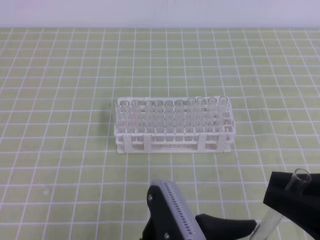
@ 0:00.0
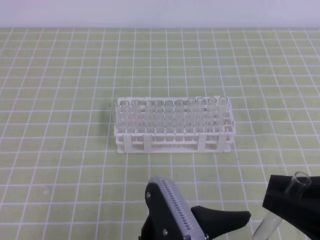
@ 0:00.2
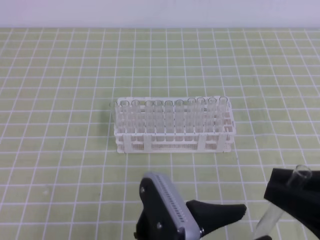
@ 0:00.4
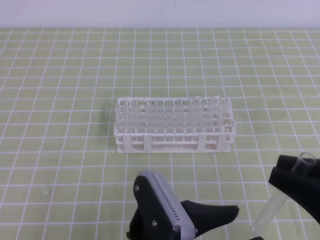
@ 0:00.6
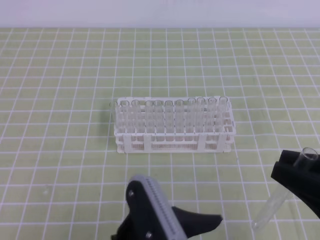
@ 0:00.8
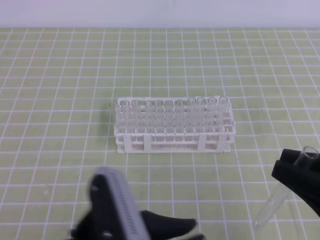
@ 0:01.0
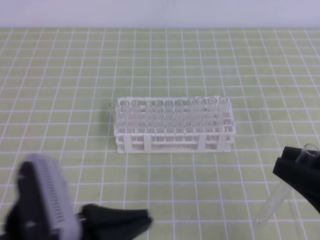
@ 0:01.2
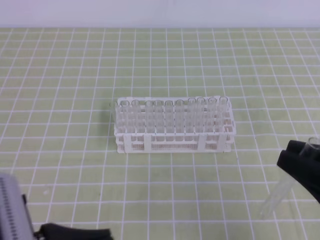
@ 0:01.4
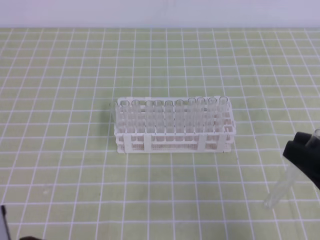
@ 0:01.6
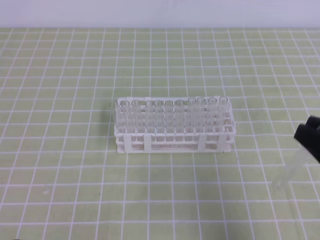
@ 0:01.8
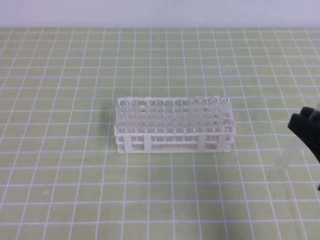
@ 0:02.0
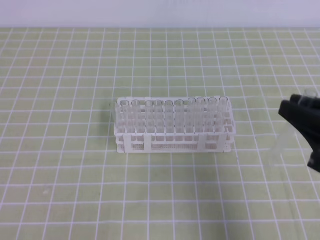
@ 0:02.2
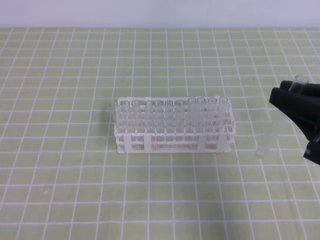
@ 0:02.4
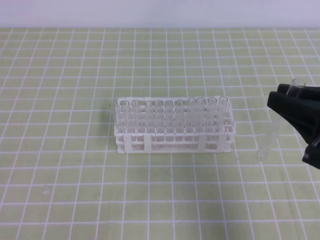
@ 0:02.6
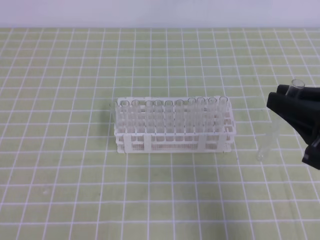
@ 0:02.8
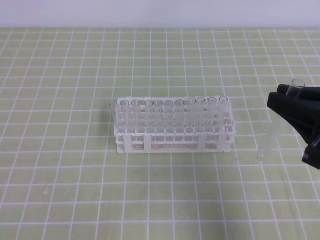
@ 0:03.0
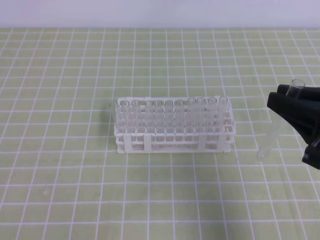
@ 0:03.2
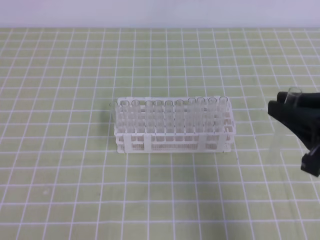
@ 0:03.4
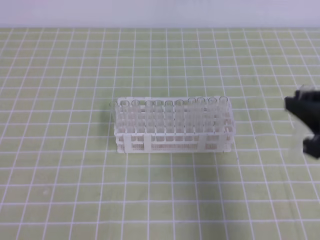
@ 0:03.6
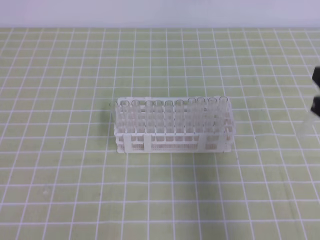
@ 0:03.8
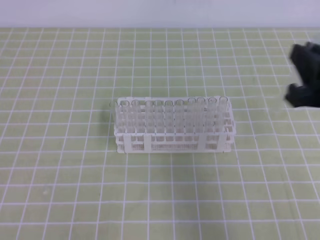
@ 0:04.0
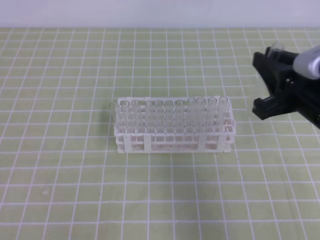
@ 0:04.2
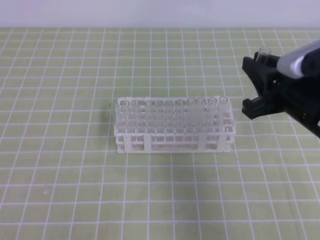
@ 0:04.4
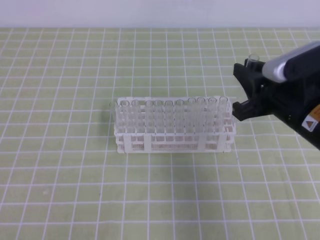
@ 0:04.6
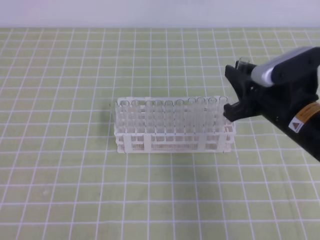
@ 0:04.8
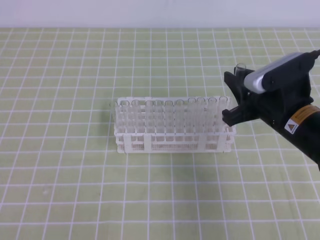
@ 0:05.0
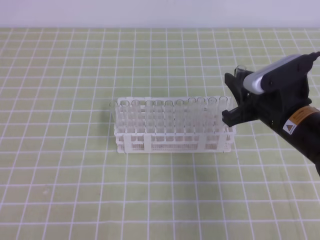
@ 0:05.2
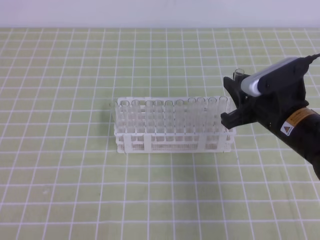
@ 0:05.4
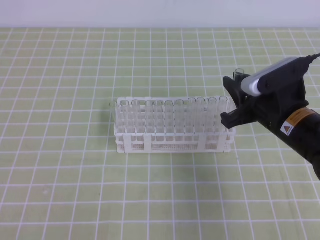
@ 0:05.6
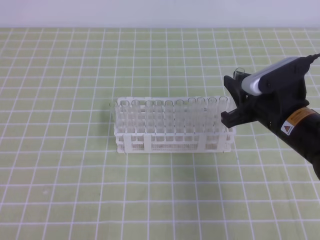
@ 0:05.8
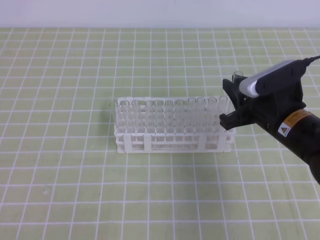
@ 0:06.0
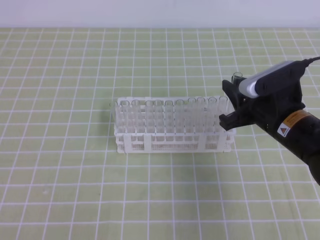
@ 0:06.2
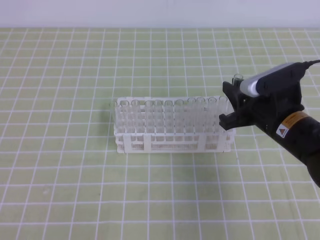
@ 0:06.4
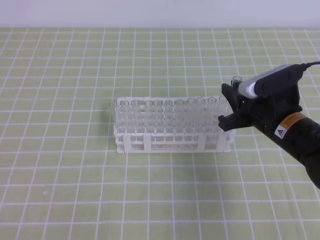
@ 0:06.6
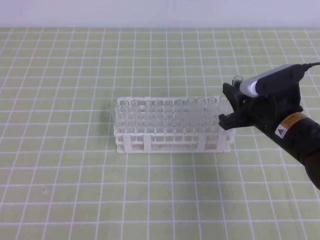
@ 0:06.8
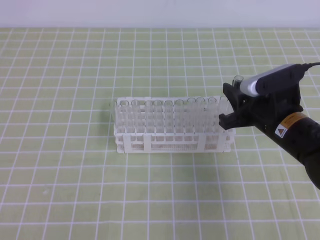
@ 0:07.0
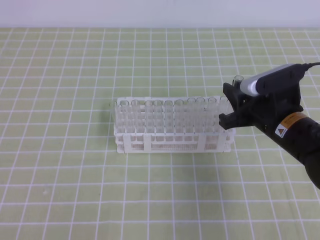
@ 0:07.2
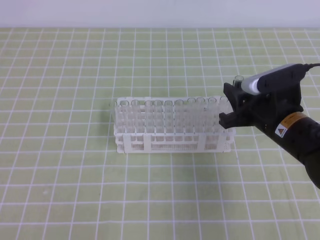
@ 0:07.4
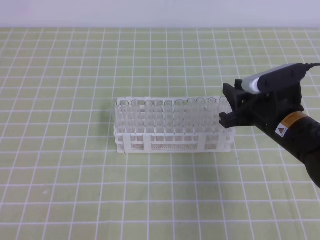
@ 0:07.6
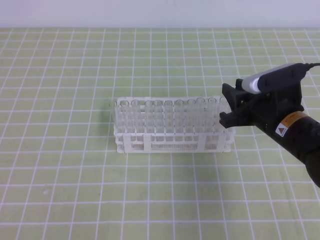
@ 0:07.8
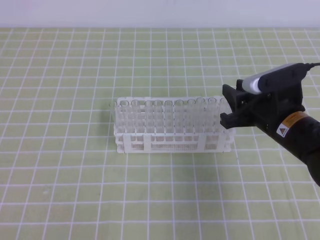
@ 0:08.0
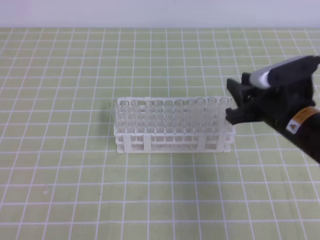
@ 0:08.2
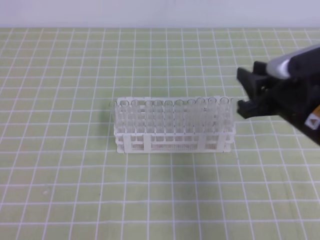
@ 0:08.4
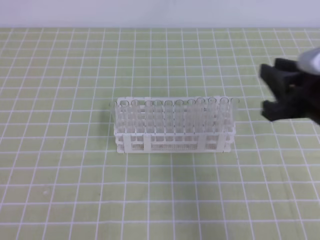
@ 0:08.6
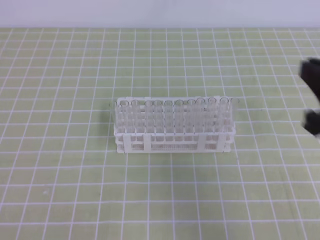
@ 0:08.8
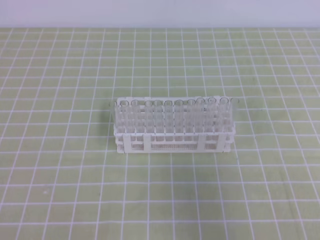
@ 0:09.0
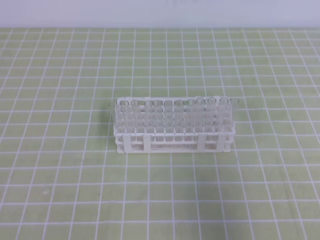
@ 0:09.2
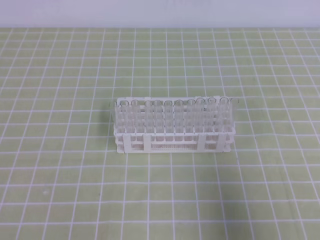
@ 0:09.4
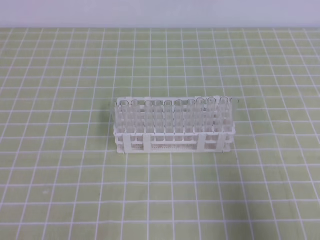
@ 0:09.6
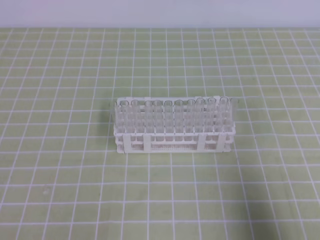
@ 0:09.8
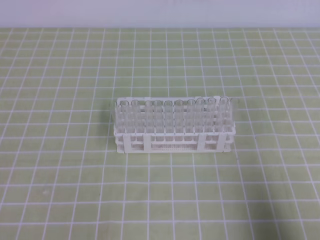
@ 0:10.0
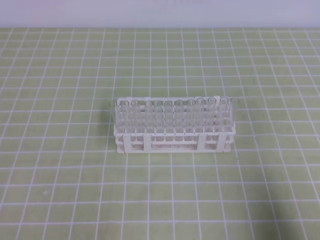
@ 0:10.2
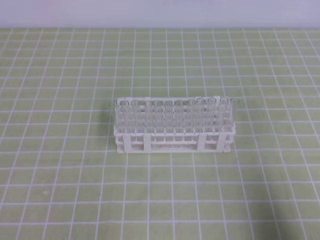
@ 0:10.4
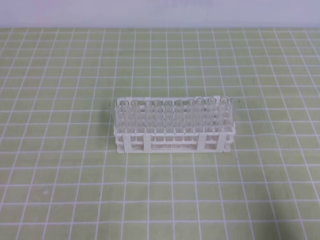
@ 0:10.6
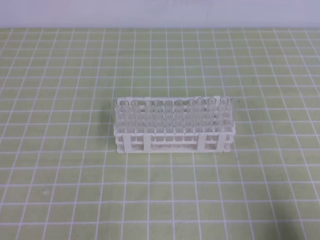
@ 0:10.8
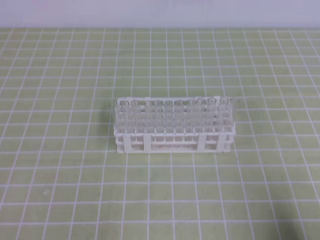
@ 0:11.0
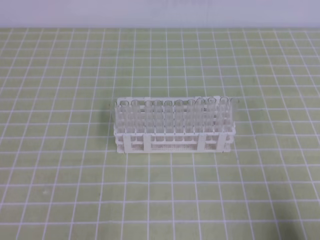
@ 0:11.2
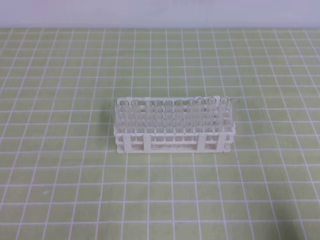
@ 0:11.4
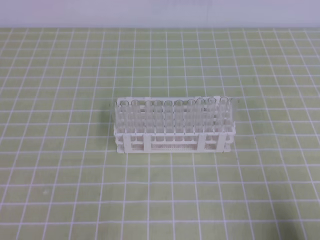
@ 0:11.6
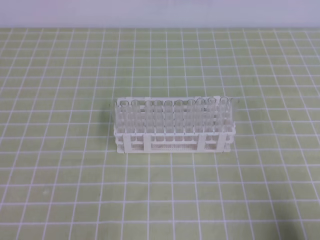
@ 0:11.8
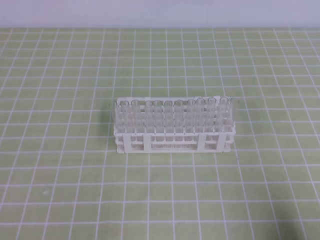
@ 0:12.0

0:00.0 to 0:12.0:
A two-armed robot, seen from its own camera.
0:00.0 to 0:01.6: The left gripper travels to the left by approximately 15 cm, and closes up.
0:01.6 to 0:03.0: The right gripper travels forward by roughly 5 cm.
0:03.0 to 0:04.4: The right gripper heads forward, covering about 5 cm.
0:04.4 to 0:06.0: The right gripper shifts roughly 10 cm downward and forward.
0:06.0 to 0:07.6: The grippers stay close to where they were, moving slightly.
0:07.6 to 0:09.0: The right gripper travels backward, upward and to the right by about 20 cm.
0:09.0 to 0:10.4: The right gripper moves downward, backward and to the right, about 15 cm.

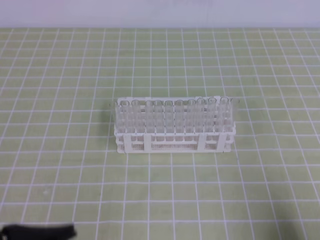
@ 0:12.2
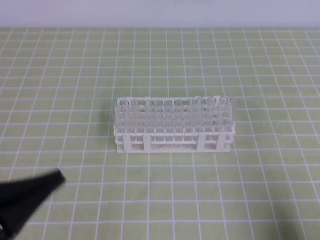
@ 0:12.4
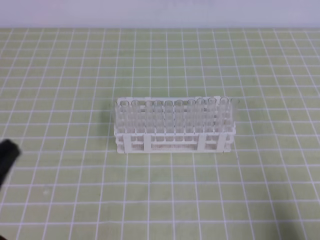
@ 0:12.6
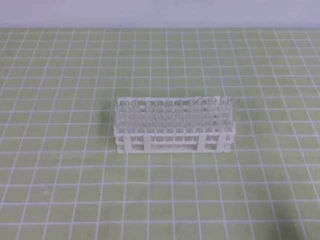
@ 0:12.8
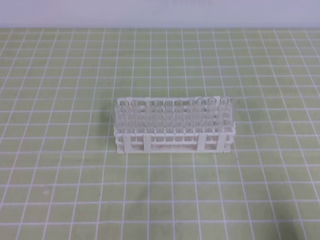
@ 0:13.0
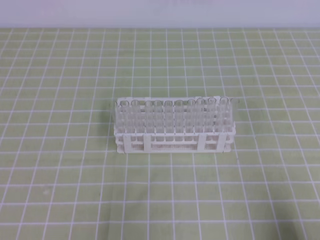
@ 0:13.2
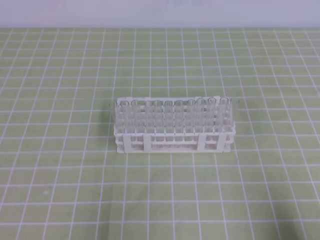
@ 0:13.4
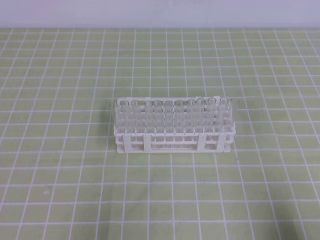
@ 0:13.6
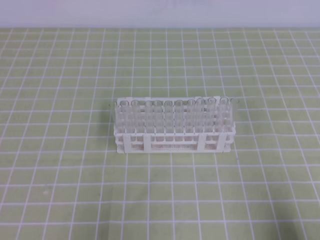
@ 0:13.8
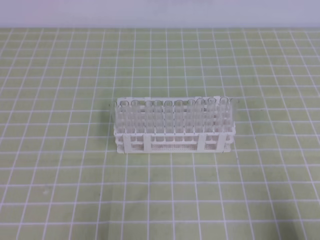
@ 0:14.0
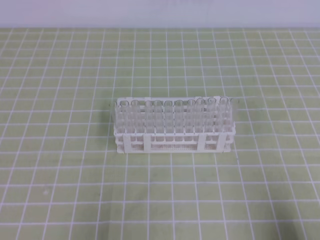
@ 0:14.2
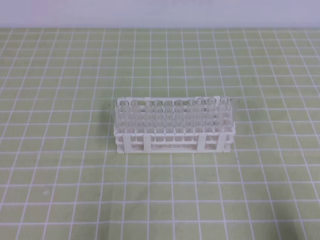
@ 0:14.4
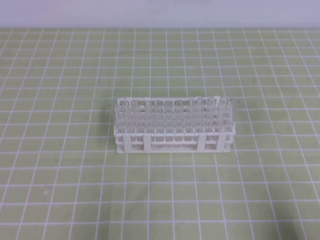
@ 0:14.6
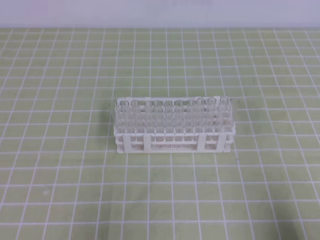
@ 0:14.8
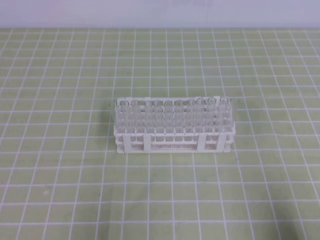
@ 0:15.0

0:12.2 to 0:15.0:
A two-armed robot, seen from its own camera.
0:12.2 to 0:13.6: The left gripper shifts some 10 cm downward and to the left.
0:13.6 to 0:15.0: Both grippers stay about where they are.
